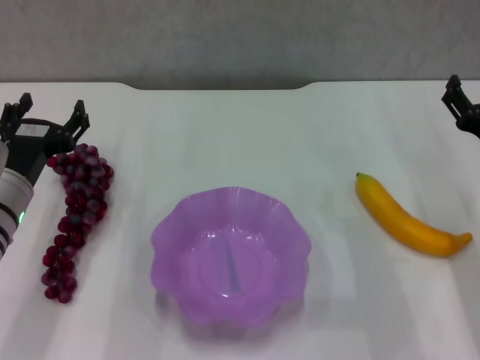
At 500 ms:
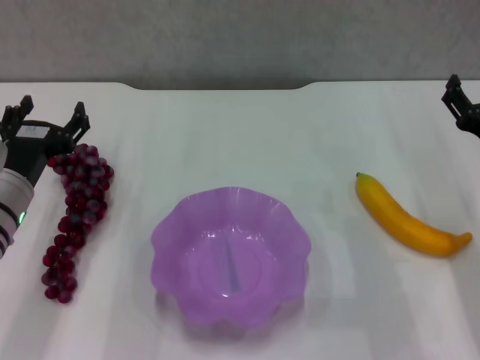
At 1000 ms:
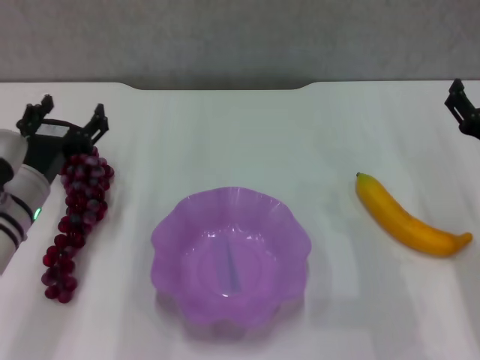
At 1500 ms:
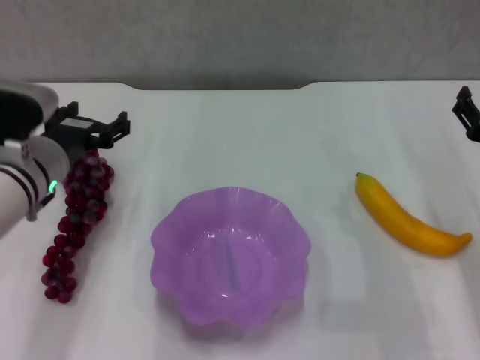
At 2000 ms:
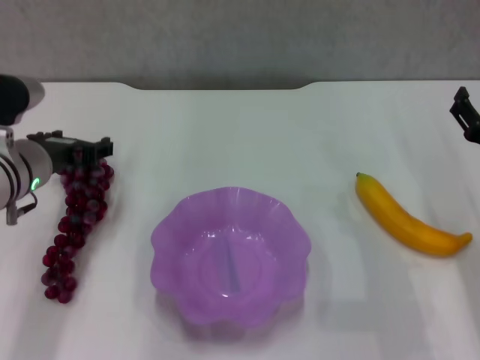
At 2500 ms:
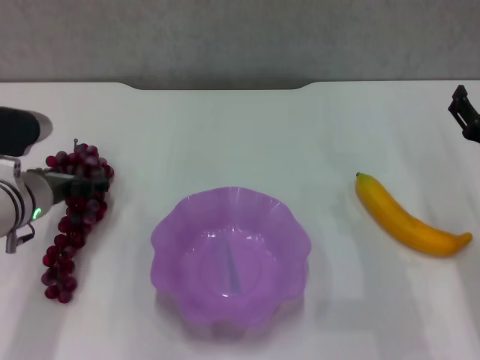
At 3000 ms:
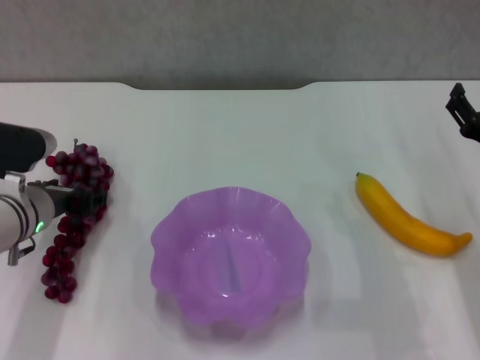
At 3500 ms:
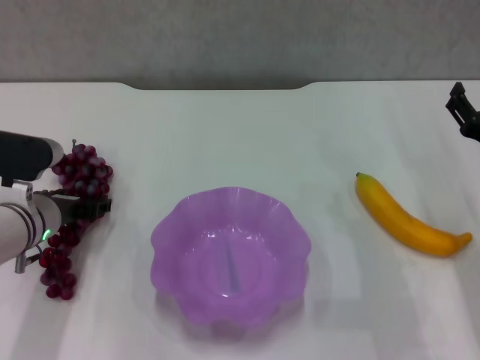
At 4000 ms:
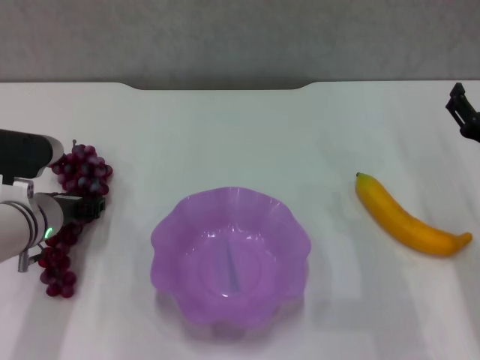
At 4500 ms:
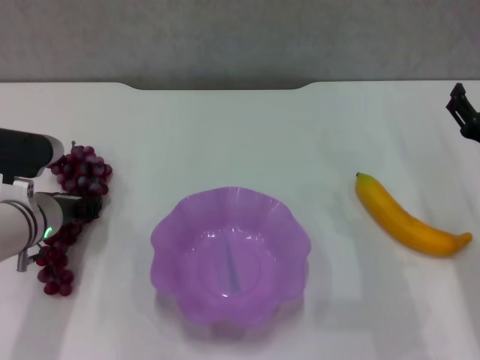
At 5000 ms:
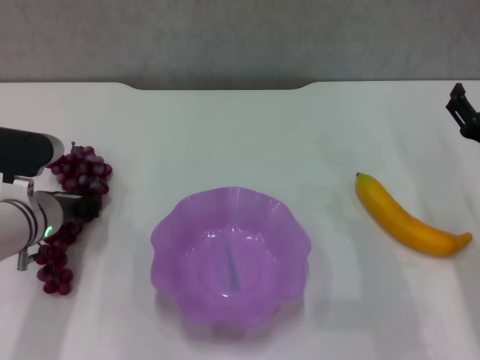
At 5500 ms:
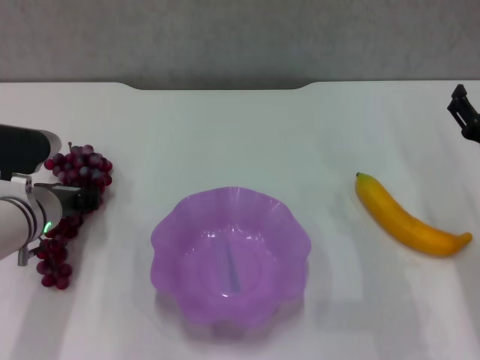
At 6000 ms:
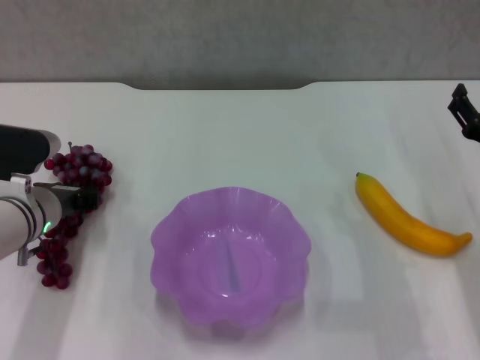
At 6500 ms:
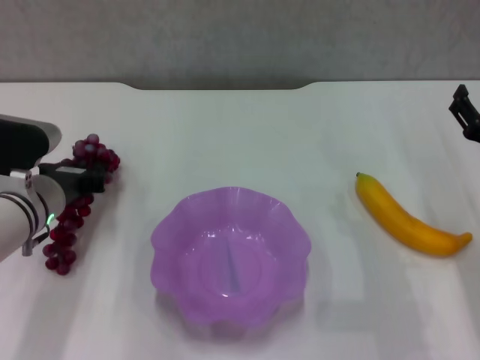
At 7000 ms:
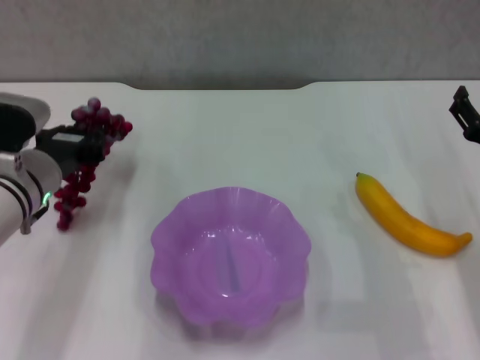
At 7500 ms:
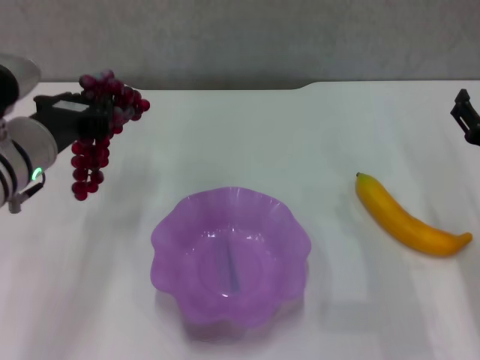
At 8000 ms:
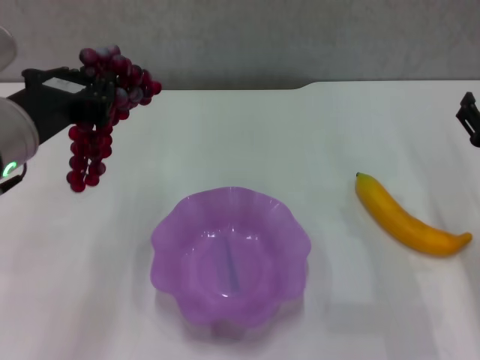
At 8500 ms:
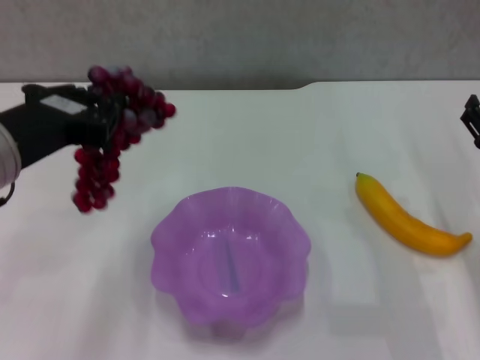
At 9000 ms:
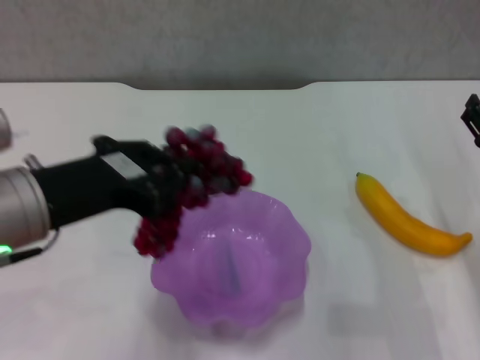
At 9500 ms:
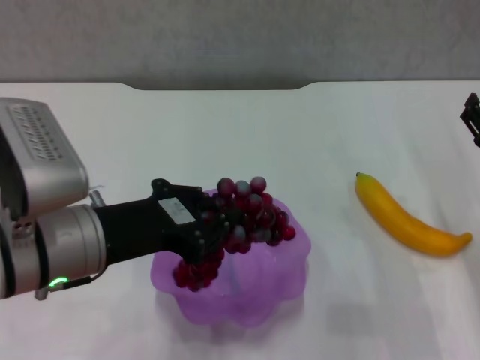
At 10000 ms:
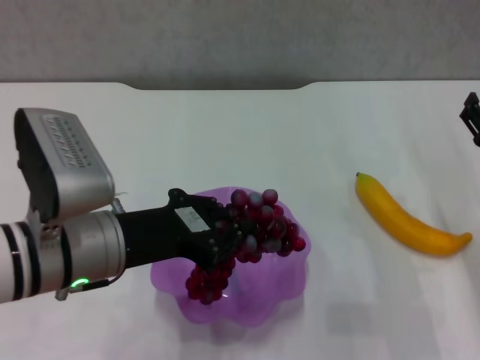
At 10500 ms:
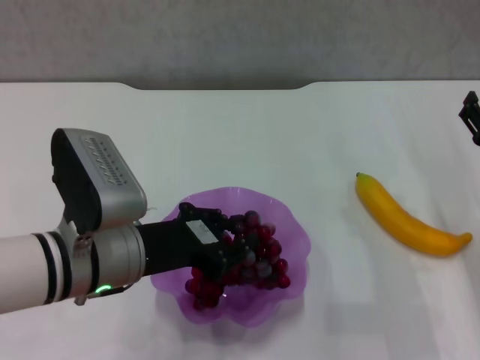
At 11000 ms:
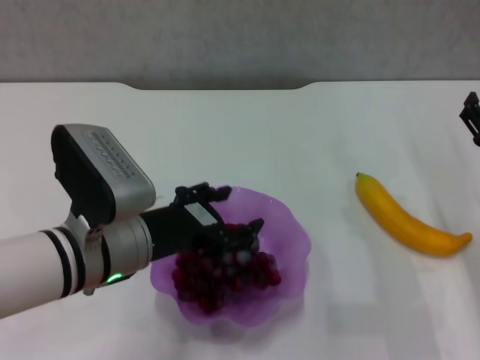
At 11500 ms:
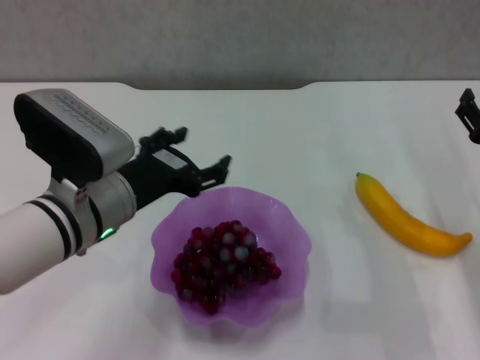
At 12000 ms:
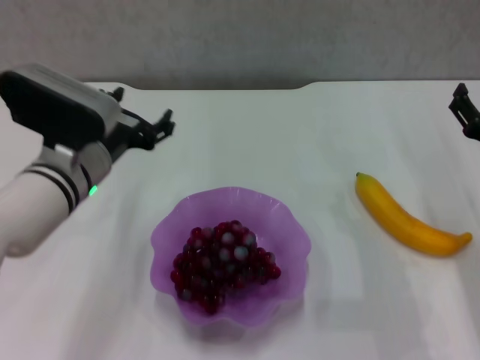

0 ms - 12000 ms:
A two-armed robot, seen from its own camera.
Step, 0 ms - 5500 ms: Grasp the grape with left gripper.
Step, 6000 ms - 10500 ms: Place the grape in the purple plate with left gripper.
0 ms - 2000 ms: The left gripper changes place by some 5 cm.
2000 ms - 4000 ms: The left gripper travels downward by roughly 5 cm, and closes its fingers.
4000 ms - 6000 ms: The left gripper closes its fingers.
6000 ms - 8000 ms: The left gripper moves upward and backward, roughly 20 cm.
8000 ms - 10000 ms: The left gripper moves downward, roughly 5 cm.
10000 ms - 12000 ms: The left gripper is displaced forward by approximately 10 cm, and opens.

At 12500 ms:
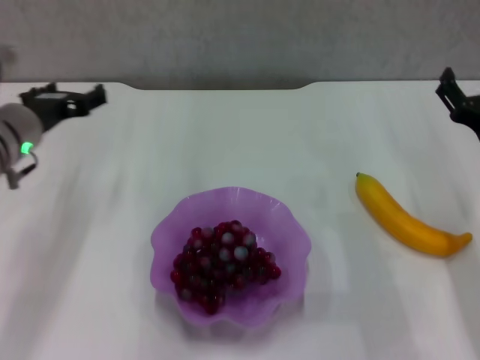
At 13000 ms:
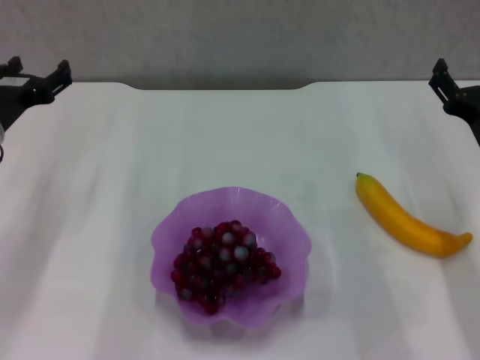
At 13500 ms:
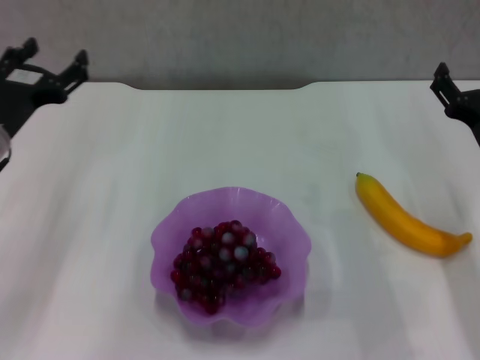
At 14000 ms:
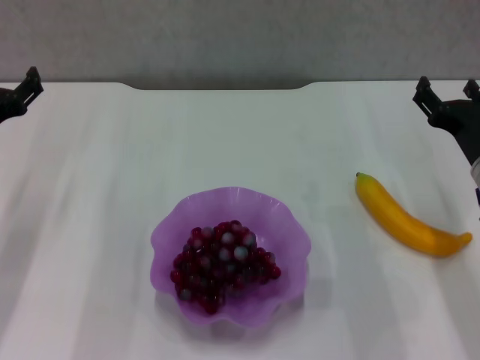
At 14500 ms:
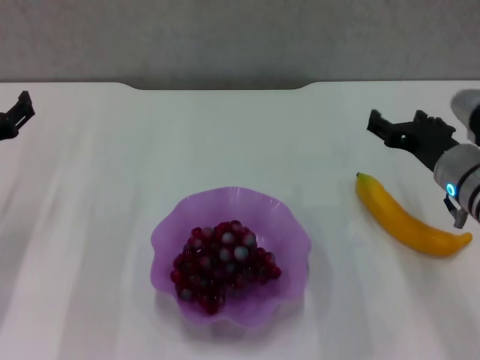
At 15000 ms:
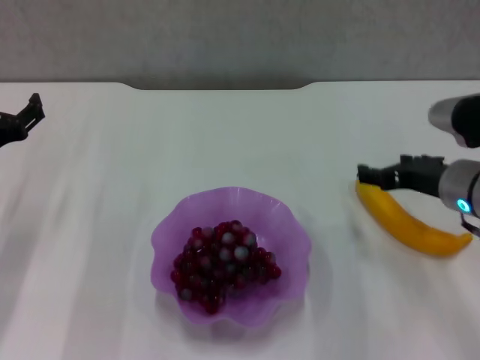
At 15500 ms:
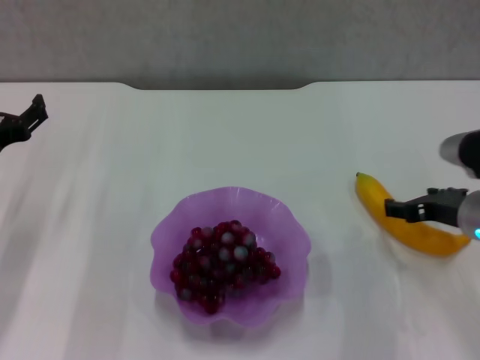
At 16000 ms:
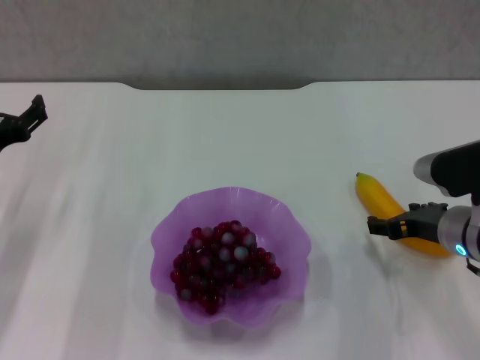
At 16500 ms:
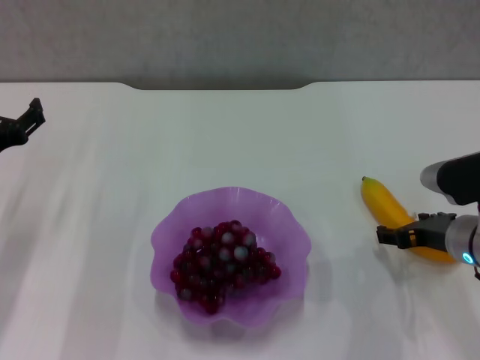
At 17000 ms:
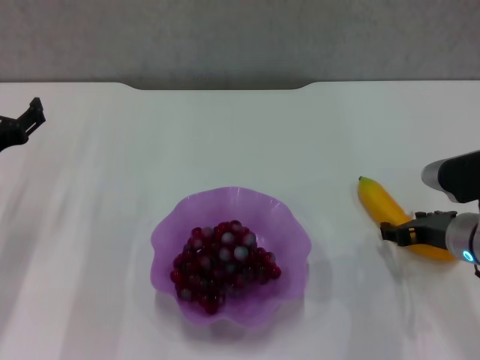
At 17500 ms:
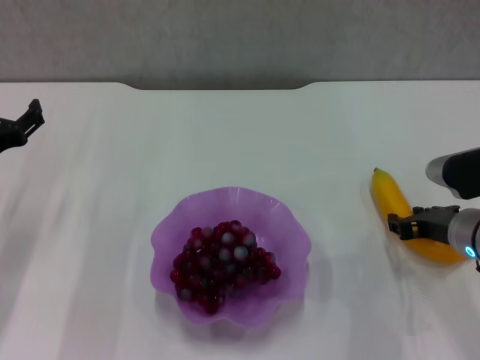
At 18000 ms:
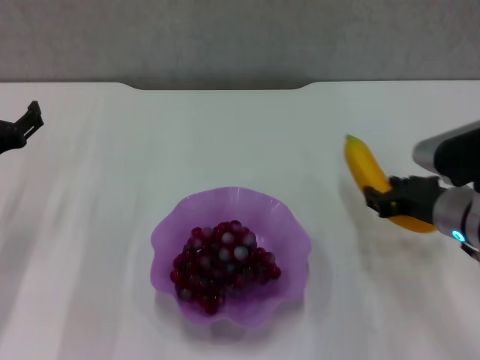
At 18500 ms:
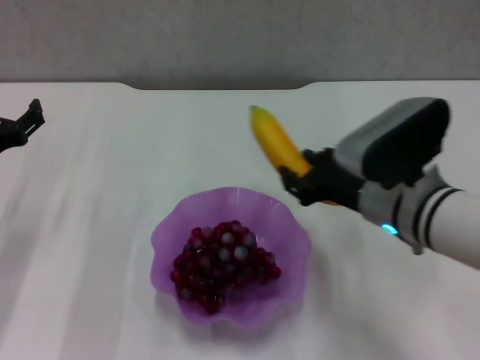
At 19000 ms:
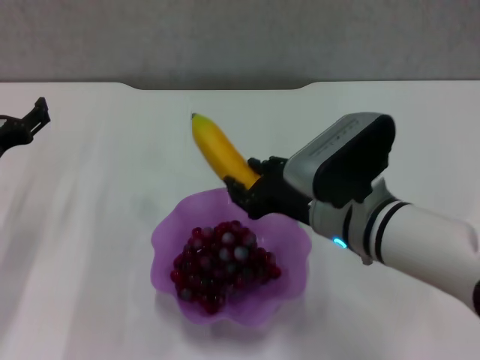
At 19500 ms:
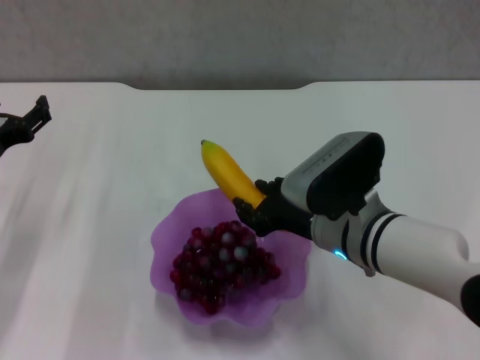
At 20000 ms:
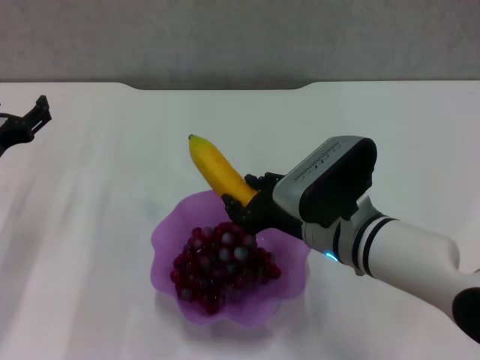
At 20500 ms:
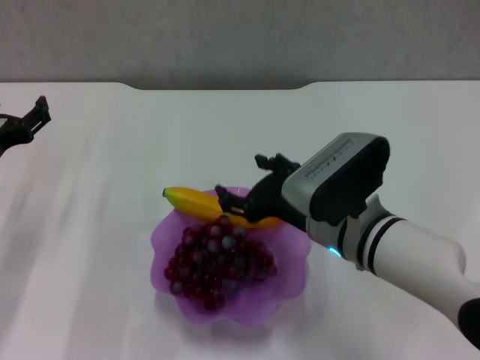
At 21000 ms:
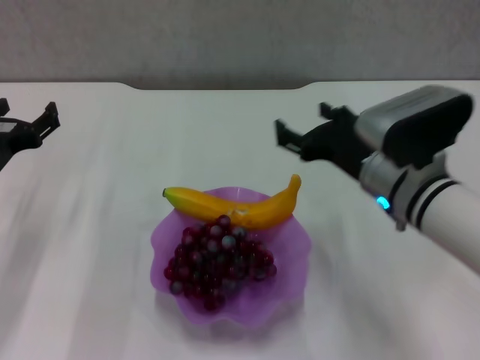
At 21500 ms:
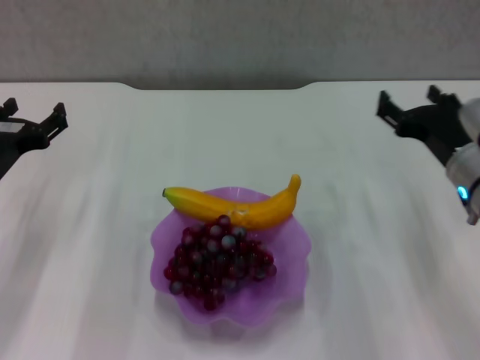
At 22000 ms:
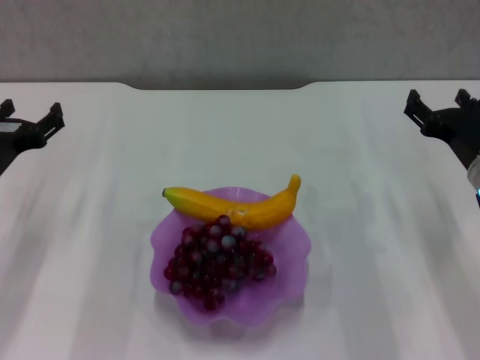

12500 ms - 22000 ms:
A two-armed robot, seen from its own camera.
Step, 12500 ms - 17000 ms: Grasp the banana with right gripper.
Step, 17500 ms - 20000 ms: Place the banana in the purple plate with right gripper.
12500 ms - 14500 ms: The left gripper goes about 5 cm to the left, while the right gripper ends up about 5 cm from where it was.
14500 ms - 16500 ms: The right gripper moves some 5 cm.
16500 ms - 18000 ms: The right gripper closes up.
18000 ms - 20000 ms: The right gripper shifts roughly 15 cm to the left.
20000 ms - 22000 ms: The right gripper goes some 15 cm to the right, and opens up.

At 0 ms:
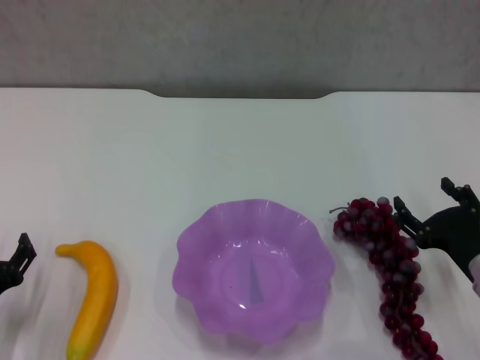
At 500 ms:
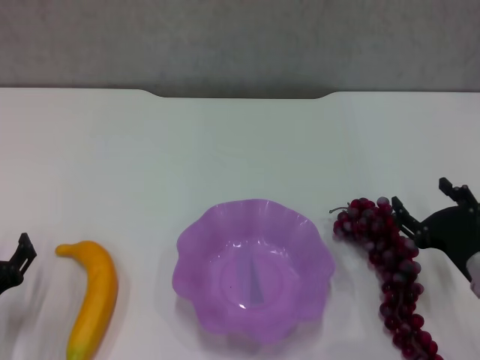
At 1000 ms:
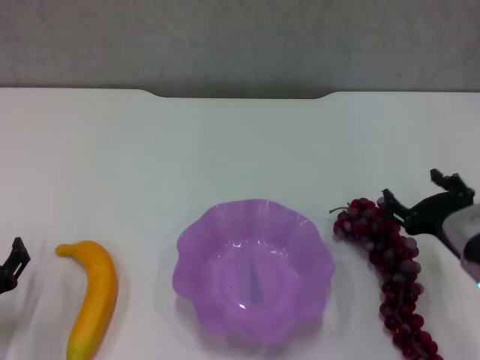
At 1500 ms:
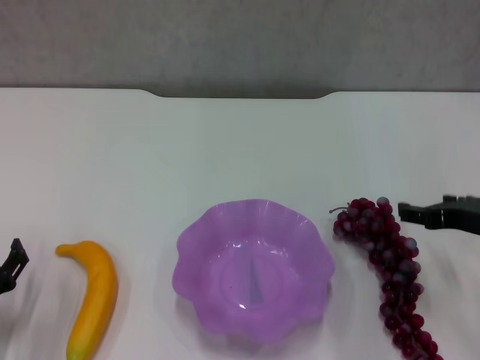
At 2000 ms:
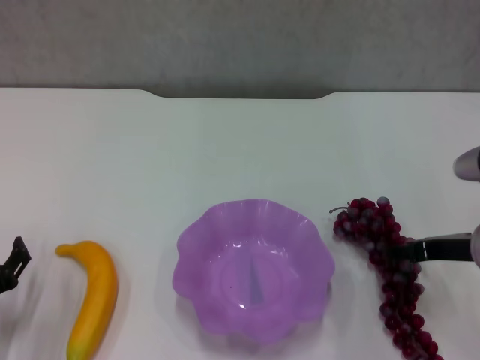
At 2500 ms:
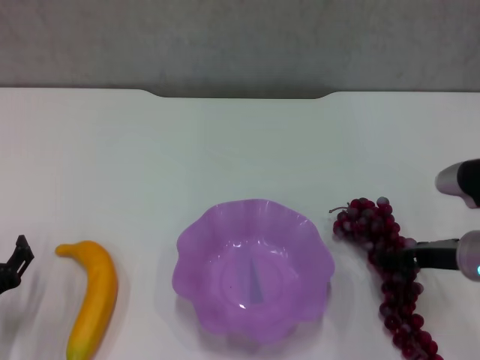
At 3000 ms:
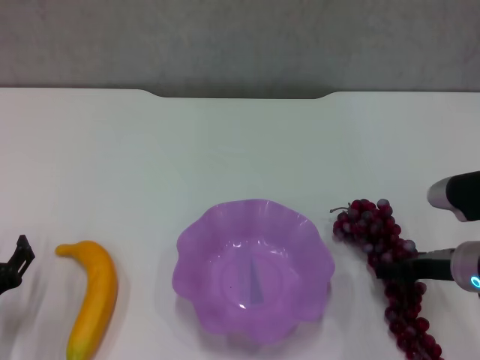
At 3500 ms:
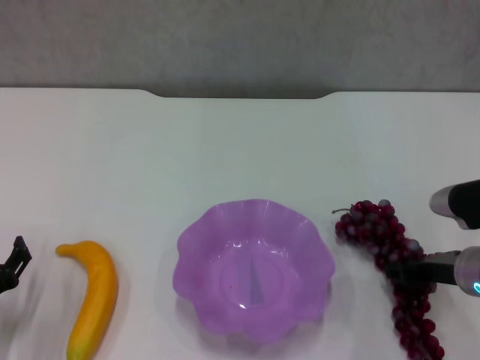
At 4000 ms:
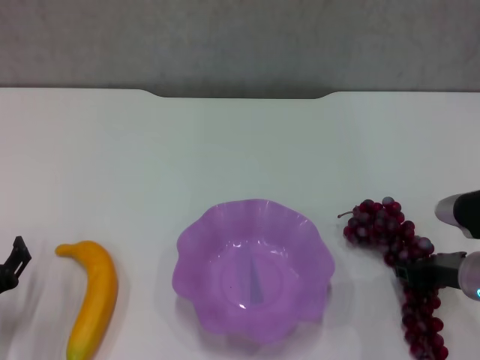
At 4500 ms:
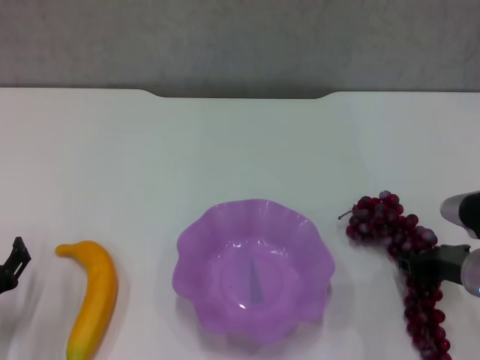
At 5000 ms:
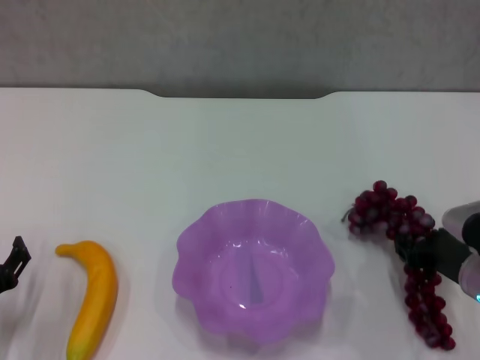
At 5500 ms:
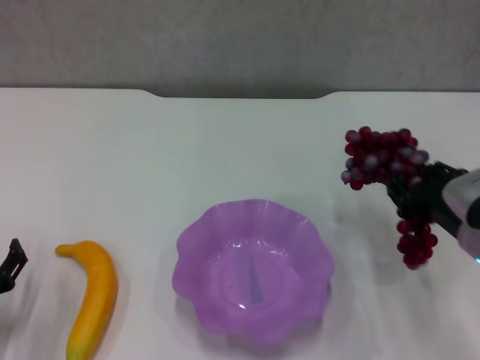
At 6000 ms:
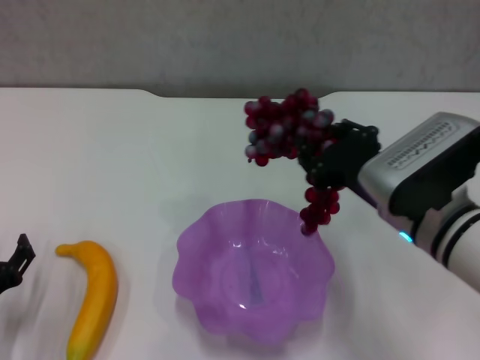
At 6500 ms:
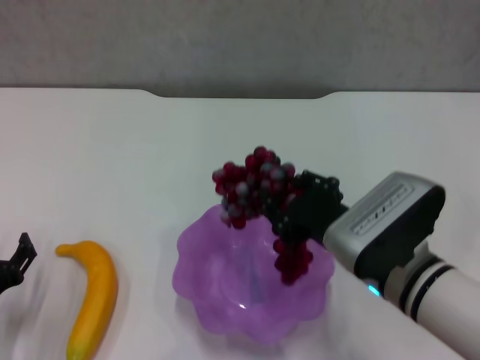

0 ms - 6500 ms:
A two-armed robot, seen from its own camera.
Step, 0 ms - 3500 ms: Grasp the grape with right gripper.
0 ms - 2000 ms: The right gripper heads upward, covering about 5 cm.
2000 ms - 4500 ms: The right gripper goes some 5 cm downward, and closes up.
4500 ms - 6500 ms: The right gripper travels to the left by some 15 cm.
